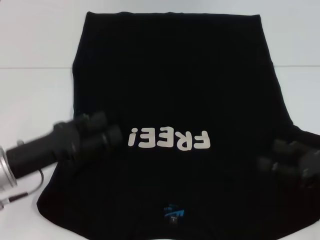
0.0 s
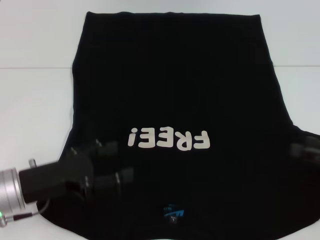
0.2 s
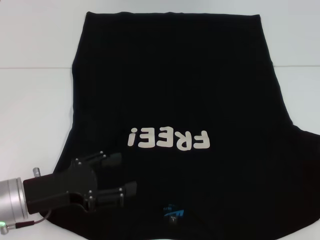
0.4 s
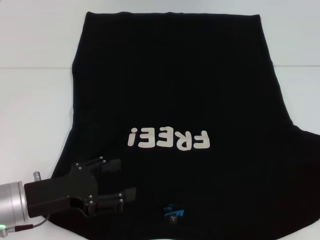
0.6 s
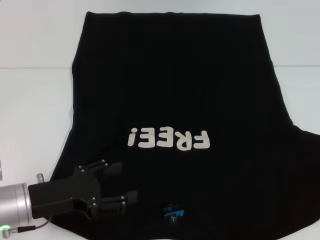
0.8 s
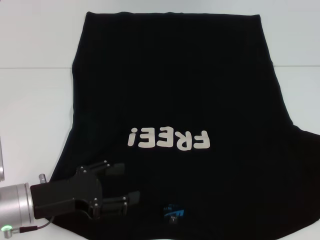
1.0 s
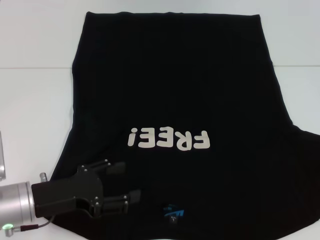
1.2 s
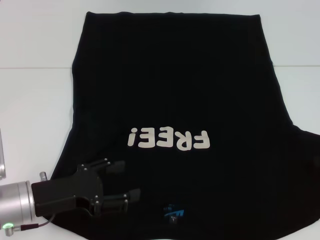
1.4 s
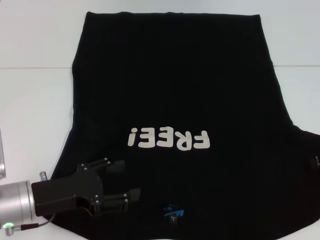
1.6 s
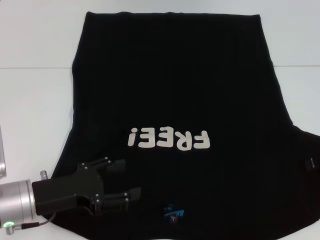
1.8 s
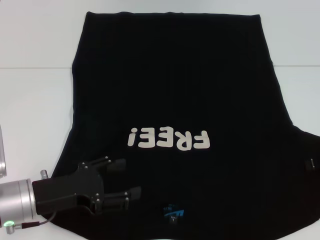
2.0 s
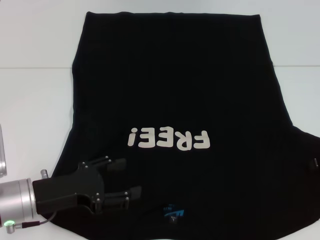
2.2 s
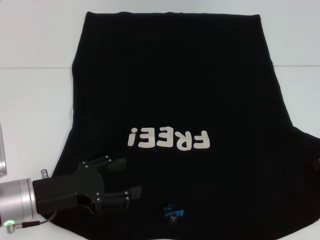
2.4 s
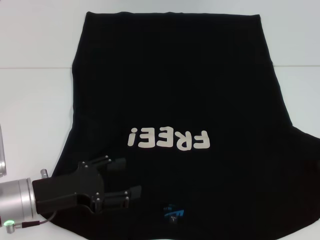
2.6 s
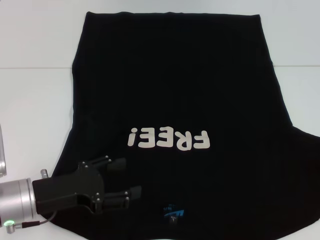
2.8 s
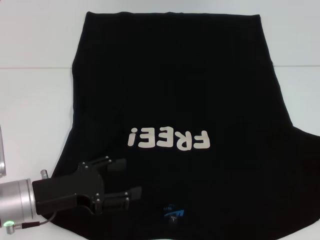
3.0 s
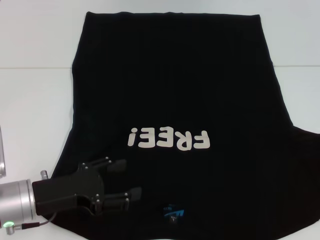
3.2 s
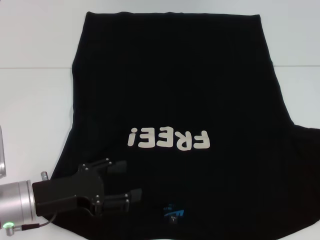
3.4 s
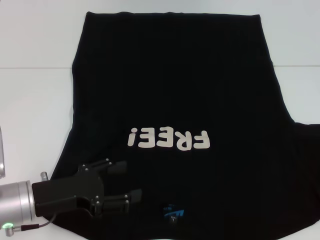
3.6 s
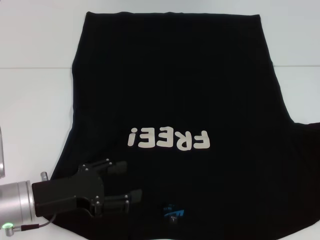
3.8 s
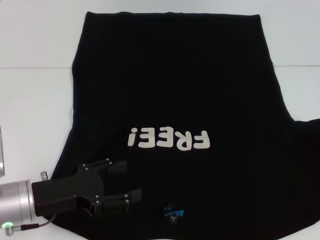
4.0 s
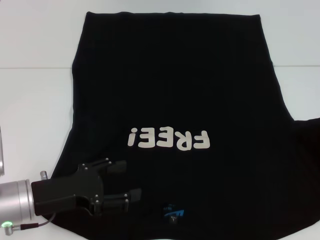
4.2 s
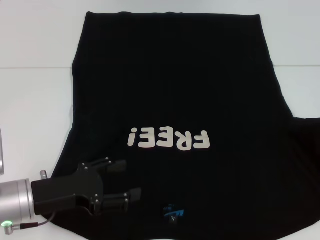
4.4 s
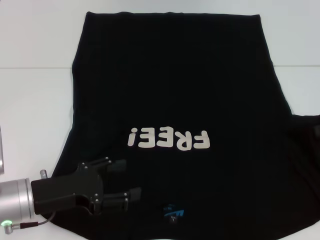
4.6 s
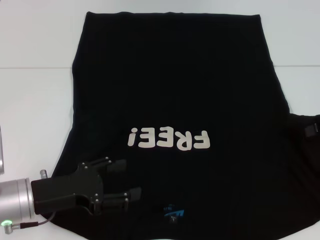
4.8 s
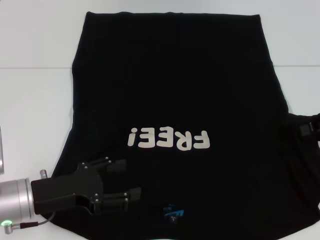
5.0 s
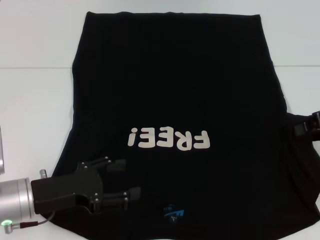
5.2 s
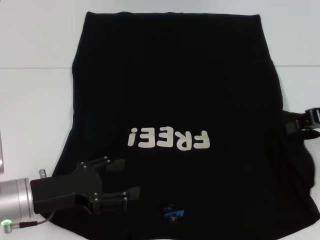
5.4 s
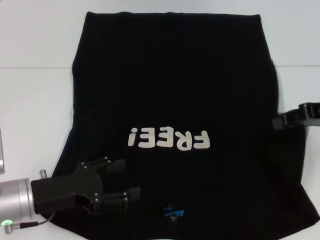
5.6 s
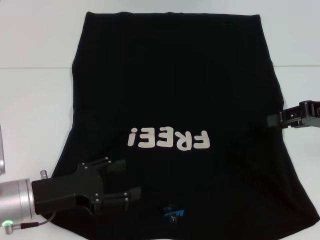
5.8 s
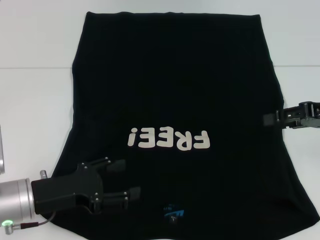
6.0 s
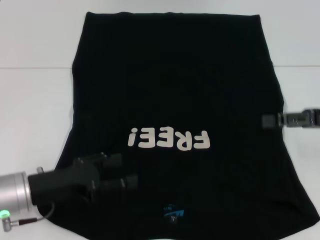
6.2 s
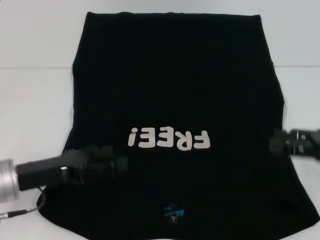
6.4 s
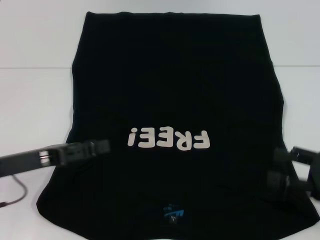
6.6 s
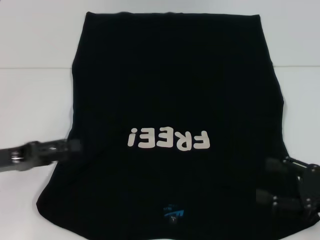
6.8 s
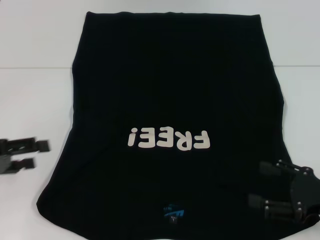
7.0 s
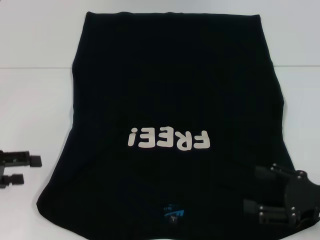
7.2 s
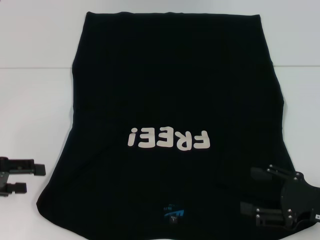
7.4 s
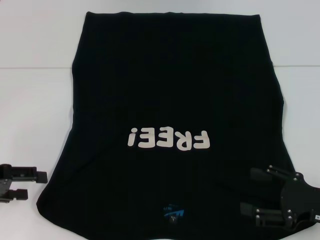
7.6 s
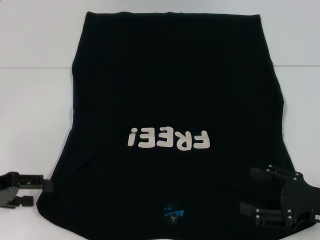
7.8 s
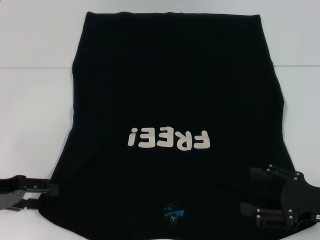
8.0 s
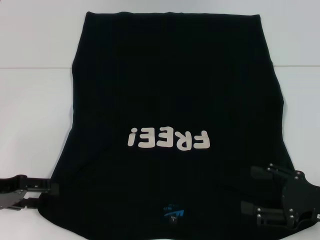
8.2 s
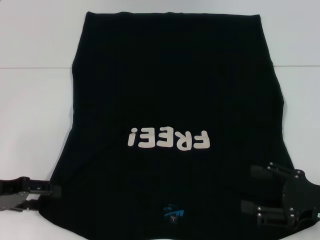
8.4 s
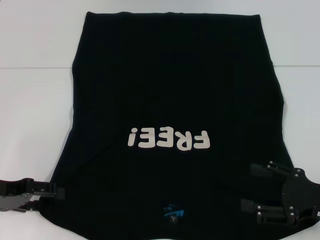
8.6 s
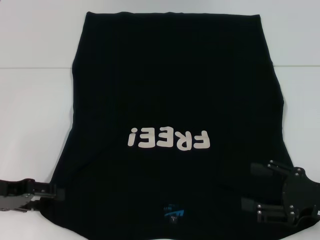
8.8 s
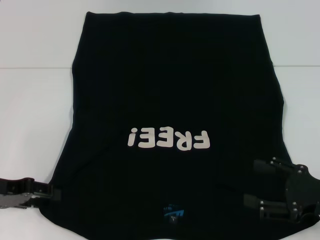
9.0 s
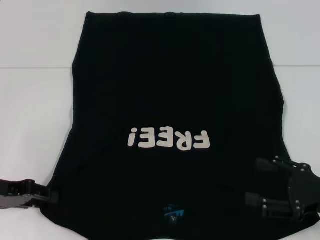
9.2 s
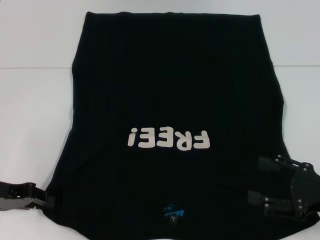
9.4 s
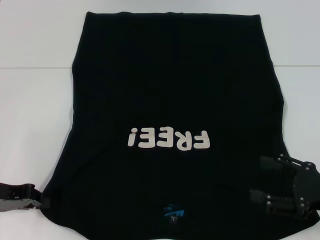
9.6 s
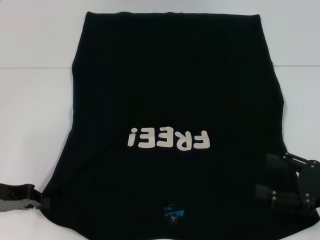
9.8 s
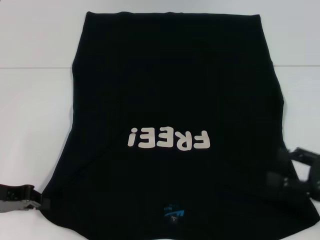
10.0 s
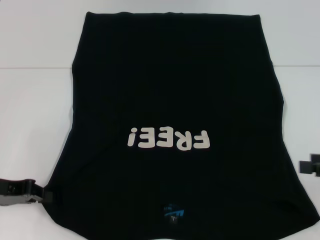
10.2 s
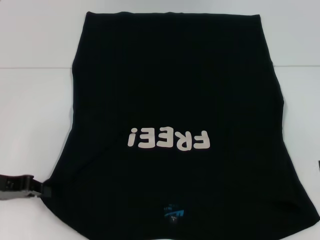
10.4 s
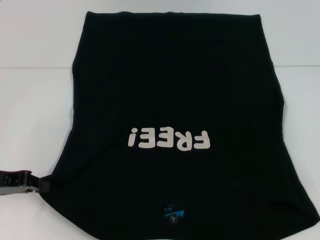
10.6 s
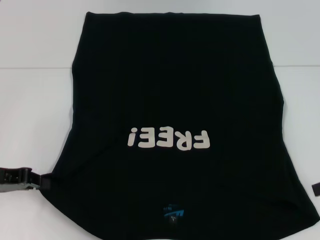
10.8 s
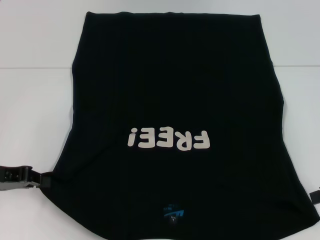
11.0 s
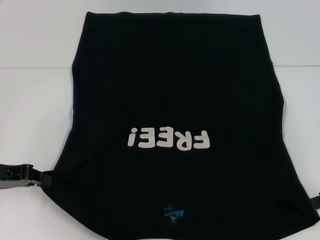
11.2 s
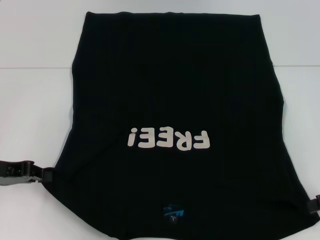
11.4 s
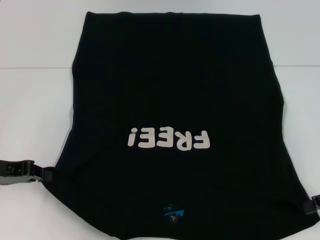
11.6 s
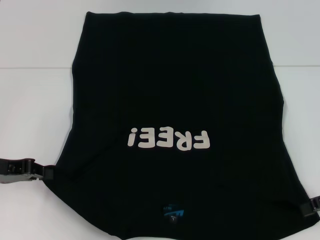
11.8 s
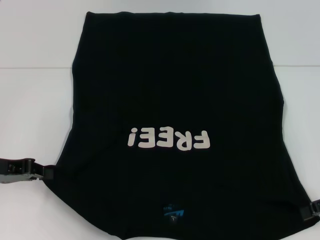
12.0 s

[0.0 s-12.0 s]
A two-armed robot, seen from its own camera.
Step, 0.0 to 6.2 s: Fold the bottom right sleeve with your right hand.
Step, 6.4 to 9.8 s: Grab the bottom left corner with your left hand.
0.0 to 1.6 s: The right gripper travels forward and upward by about 10 cm.
3.0 to 4.4 s: The right gripper is displaced upward by some 5 cm.
6.0 to 7.6 s: The right gripper travels backward and downward by roughly 15 cm, and opens, while the left gripper is displaced to the left and upward by approximately 15 cm.
7.6 to 9.0 s: The grippers make only small movements.
9.0 to 10.4 s: The right gripper is displaced upward and to the right by about 10 cm; the left gripper closes up.

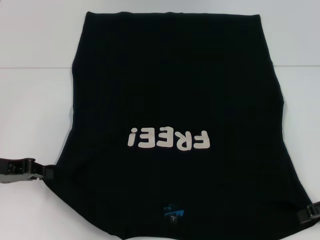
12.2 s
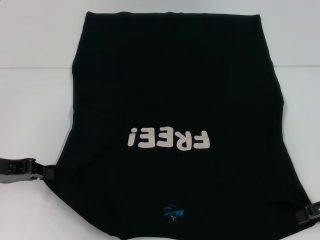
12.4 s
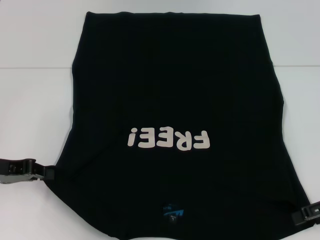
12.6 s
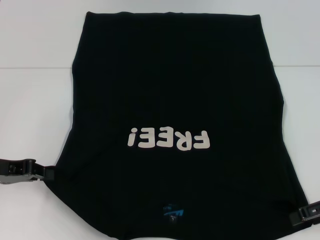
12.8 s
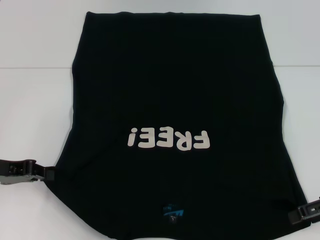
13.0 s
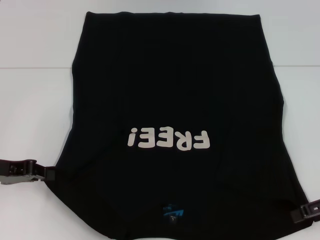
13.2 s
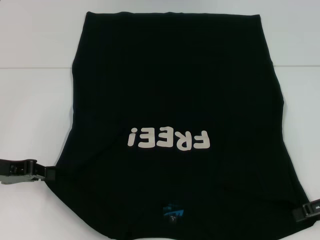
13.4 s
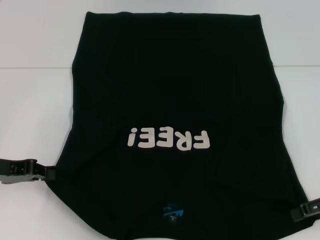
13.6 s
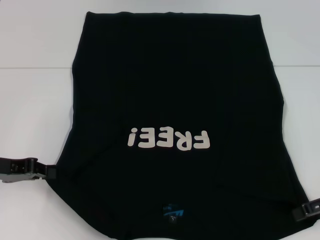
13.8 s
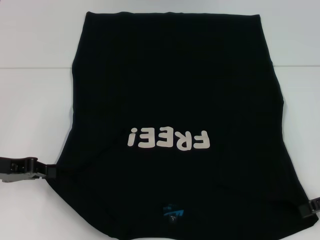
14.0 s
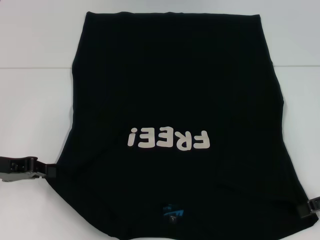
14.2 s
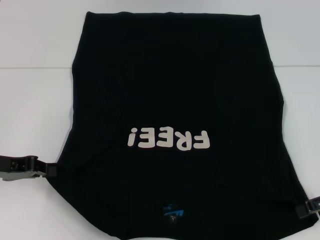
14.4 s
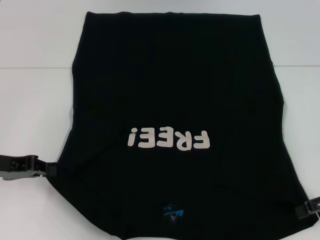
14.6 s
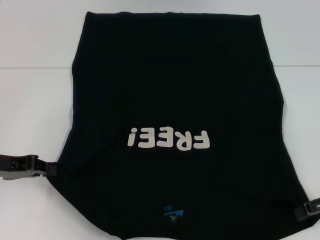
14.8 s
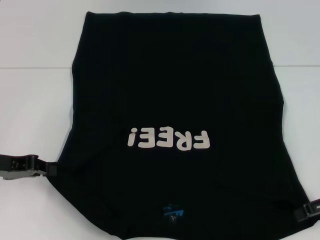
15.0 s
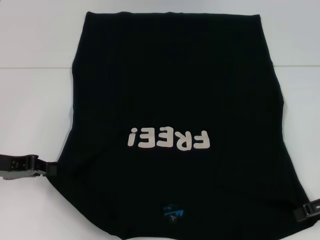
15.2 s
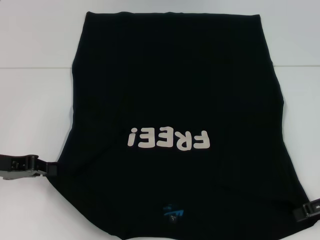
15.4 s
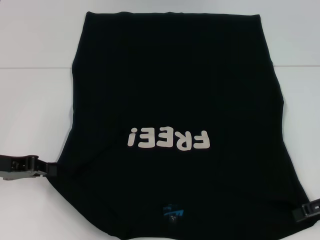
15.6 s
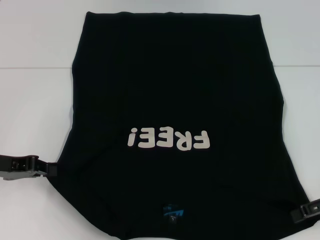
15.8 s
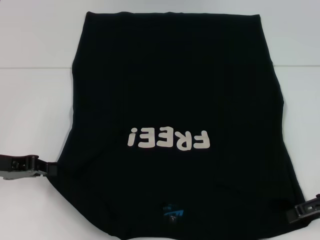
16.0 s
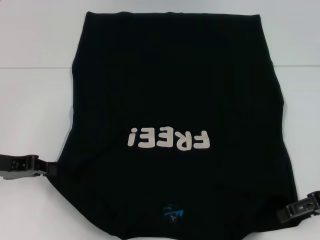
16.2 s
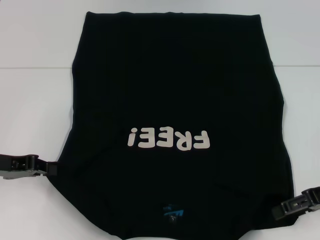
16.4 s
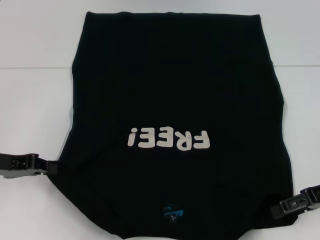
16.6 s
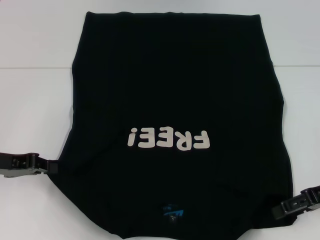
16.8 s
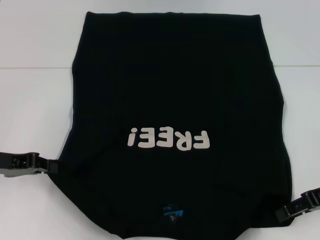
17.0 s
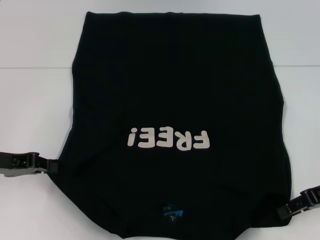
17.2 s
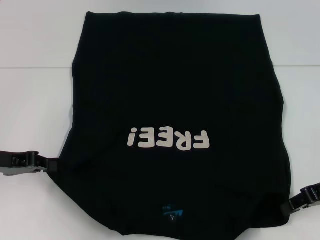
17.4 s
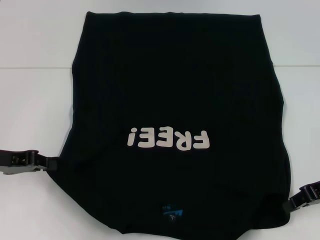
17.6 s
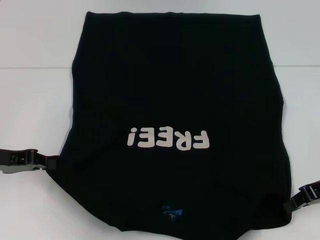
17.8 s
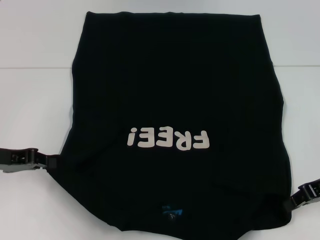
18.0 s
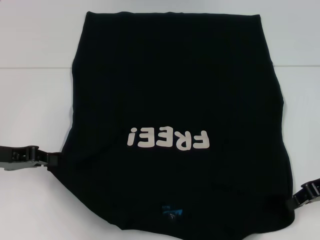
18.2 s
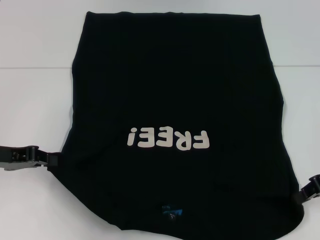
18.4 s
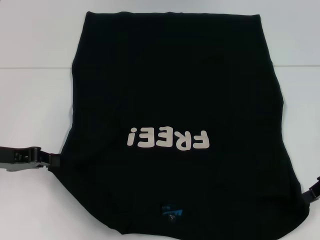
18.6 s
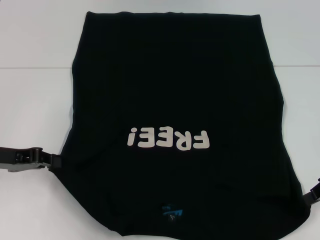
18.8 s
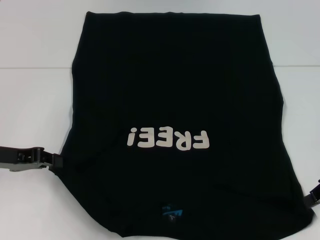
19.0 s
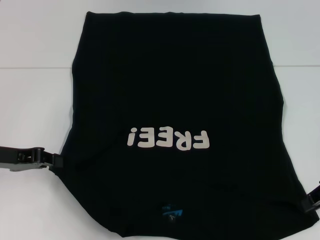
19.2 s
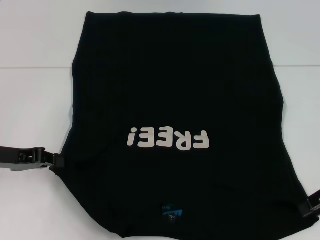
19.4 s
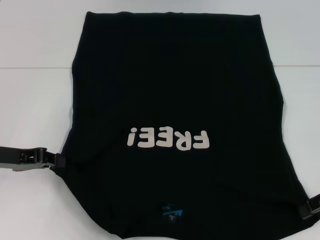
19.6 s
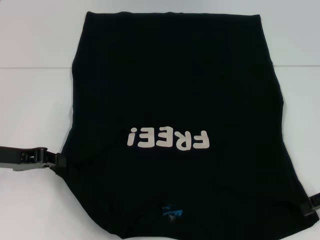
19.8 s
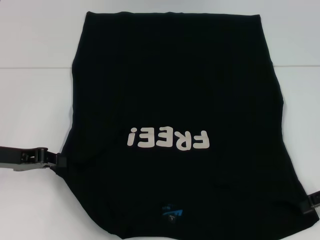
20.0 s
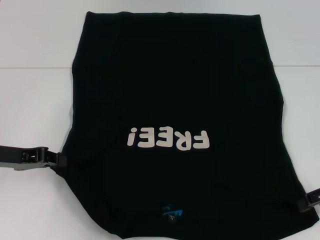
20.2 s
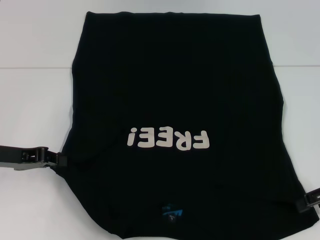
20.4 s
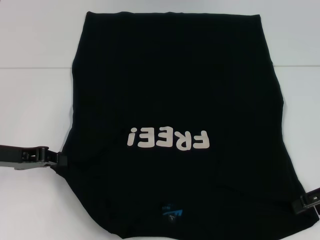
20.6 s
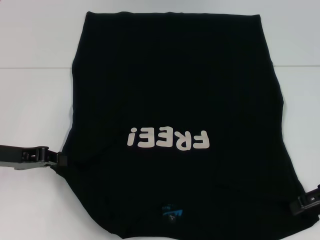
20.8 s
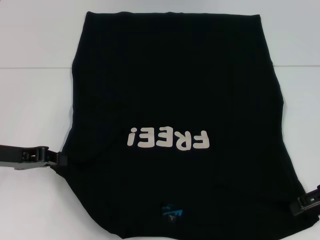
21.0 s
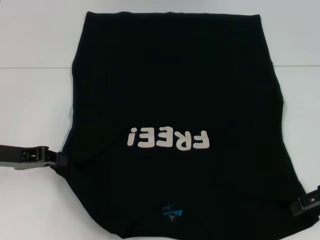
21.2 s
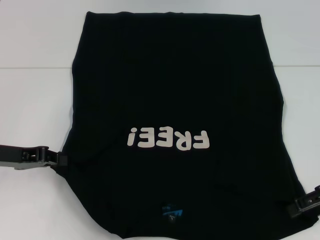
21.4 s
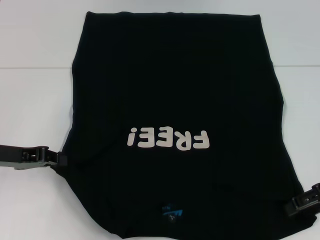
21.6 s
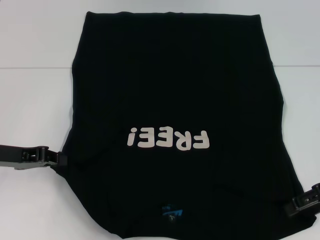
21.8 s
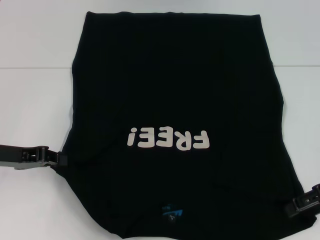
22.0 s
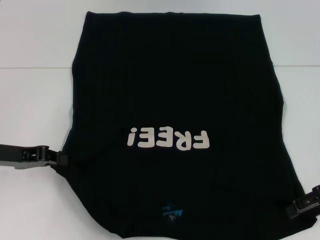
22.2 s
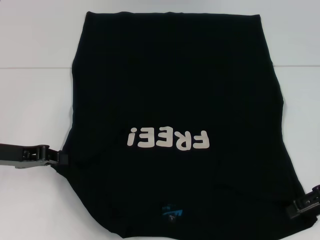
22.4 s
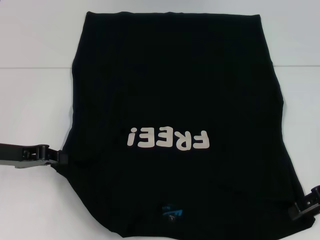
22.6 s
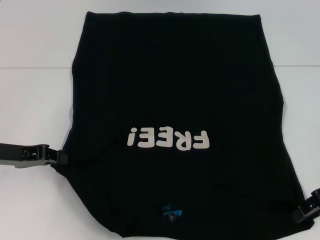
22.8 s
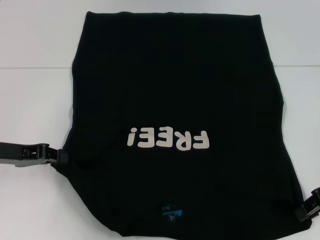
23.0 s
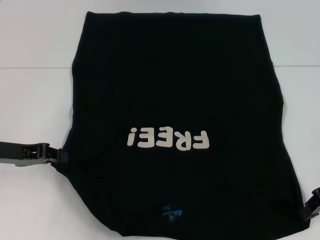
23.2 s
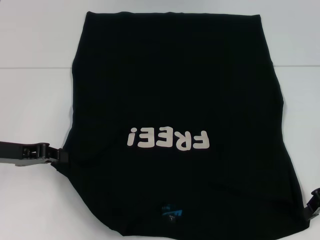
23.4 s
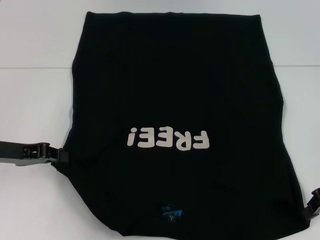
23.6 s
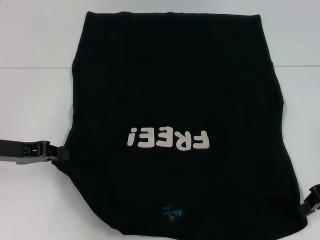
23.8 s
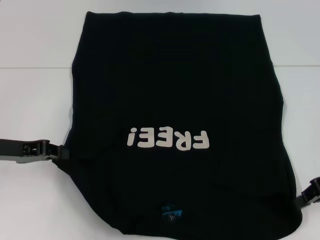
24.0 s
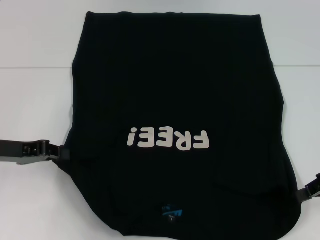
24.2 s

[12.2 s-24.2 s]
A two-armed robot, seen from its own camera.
12.2 to 15.2 s: Both grippers stay about where they are.
15.2 to 16.6 s: The grippers make only small movements.
16.6 to 18.2 s: The right gripper closes.
18.2 to 19.8 s: The right gripper opens up.
19.8 to 22.6 s: There are only small adjustments of the grippers.
22.6 to 24.2 s: The right gripper closes.
